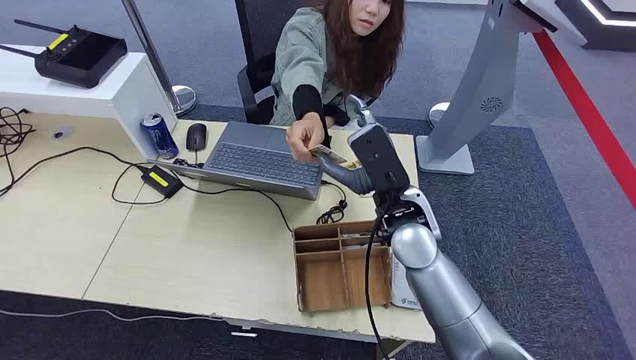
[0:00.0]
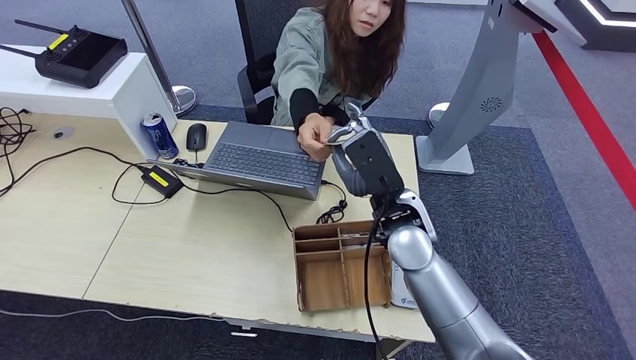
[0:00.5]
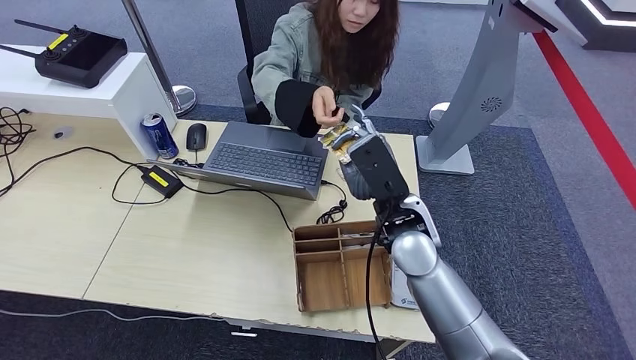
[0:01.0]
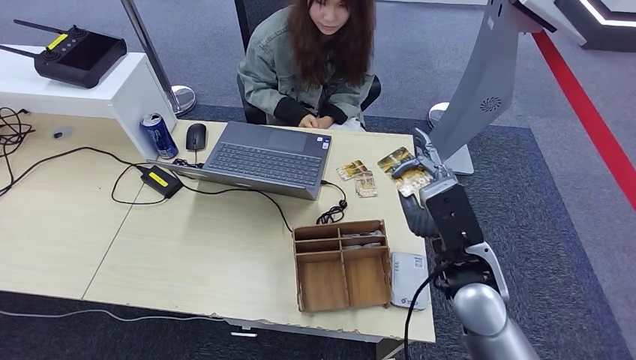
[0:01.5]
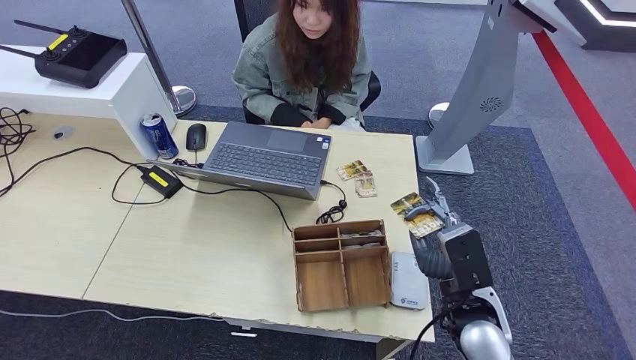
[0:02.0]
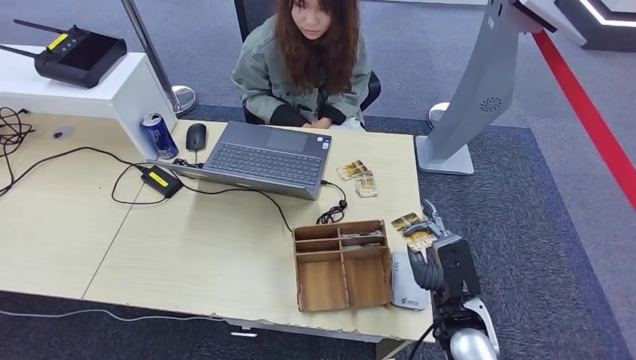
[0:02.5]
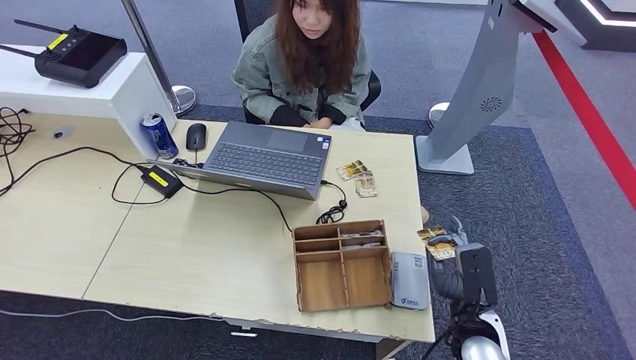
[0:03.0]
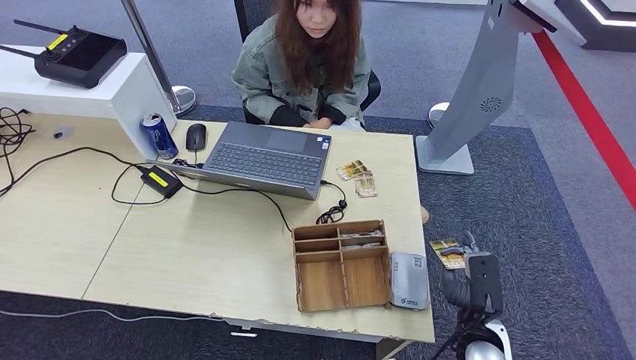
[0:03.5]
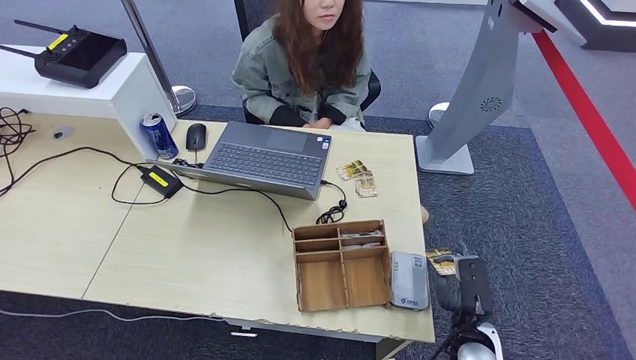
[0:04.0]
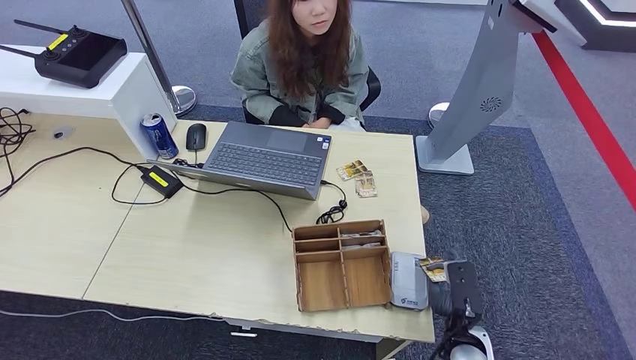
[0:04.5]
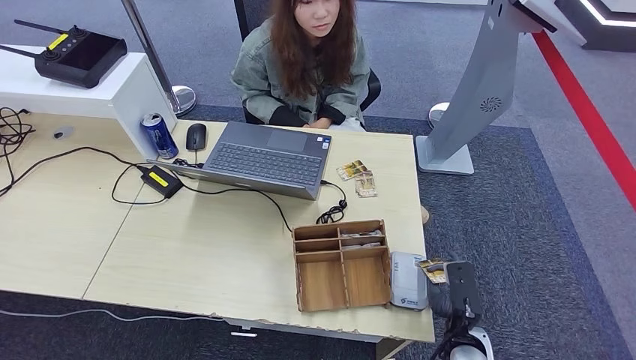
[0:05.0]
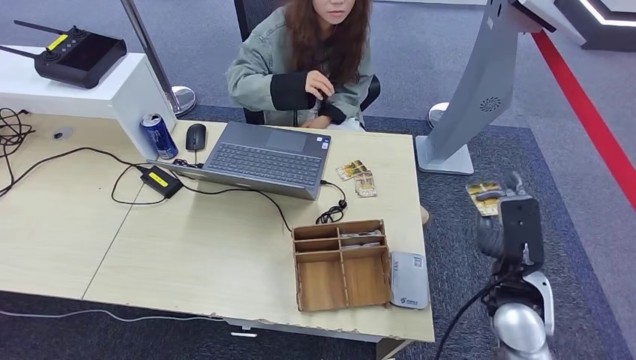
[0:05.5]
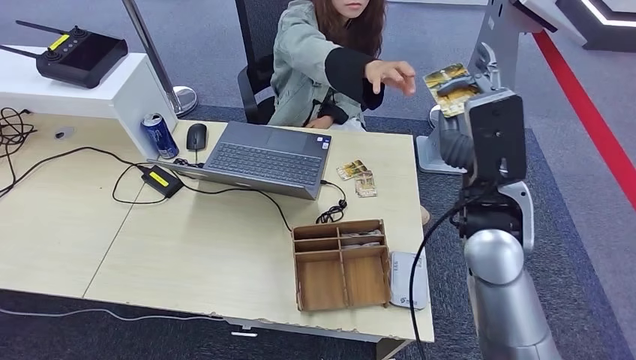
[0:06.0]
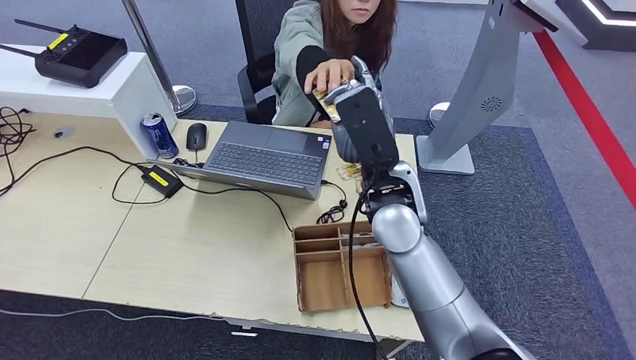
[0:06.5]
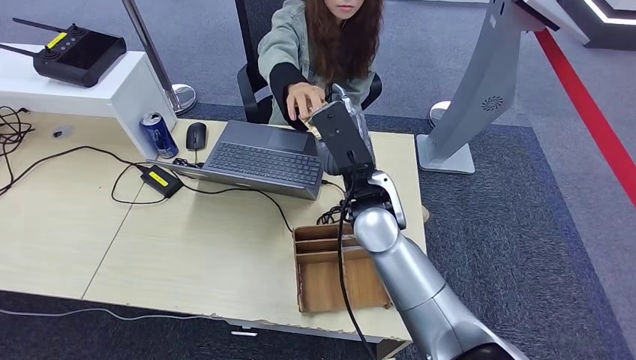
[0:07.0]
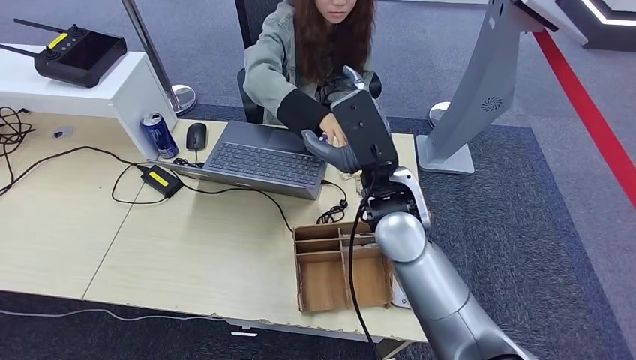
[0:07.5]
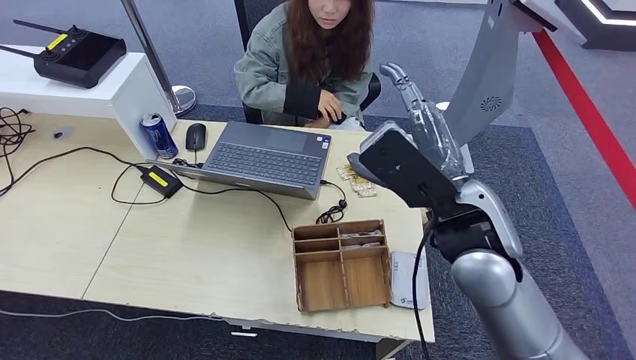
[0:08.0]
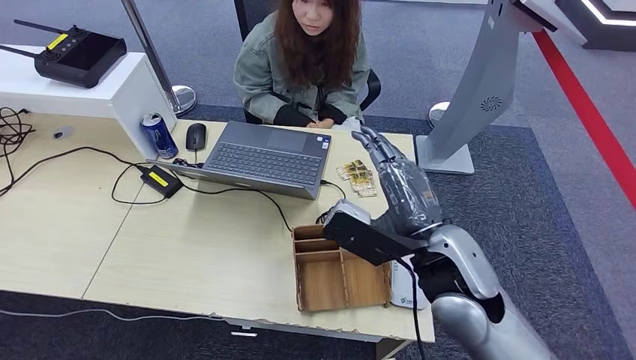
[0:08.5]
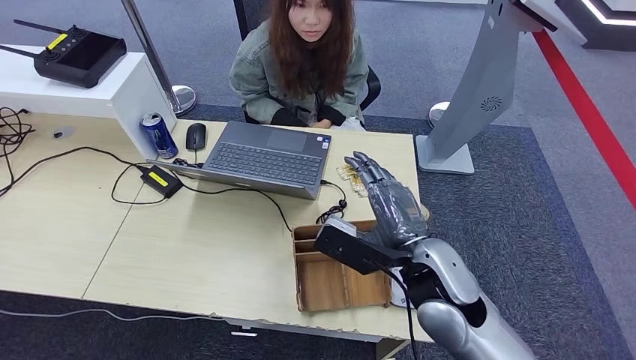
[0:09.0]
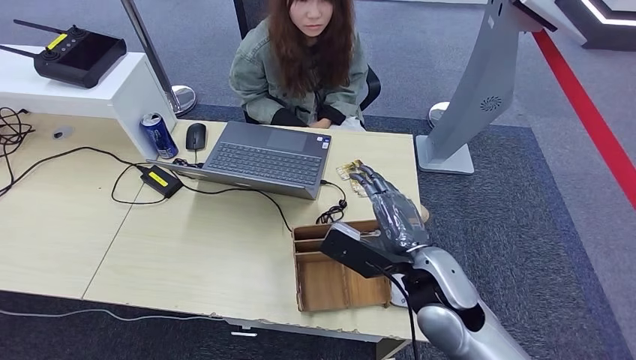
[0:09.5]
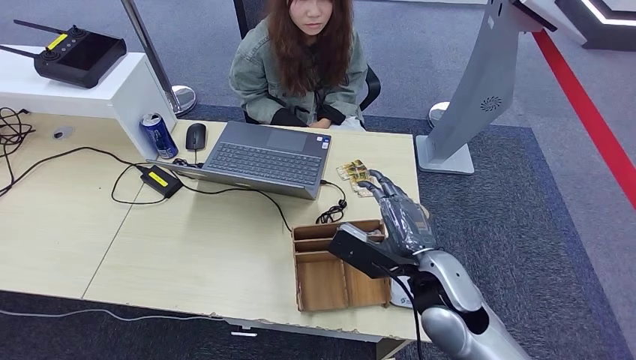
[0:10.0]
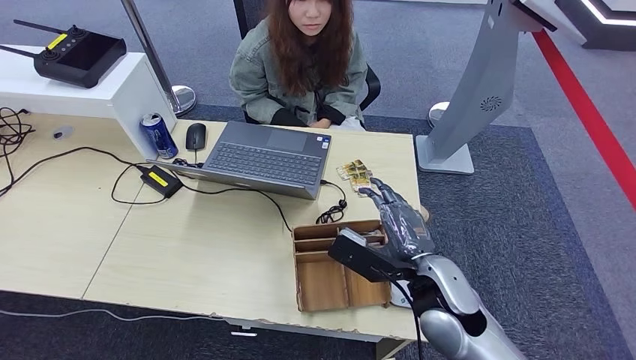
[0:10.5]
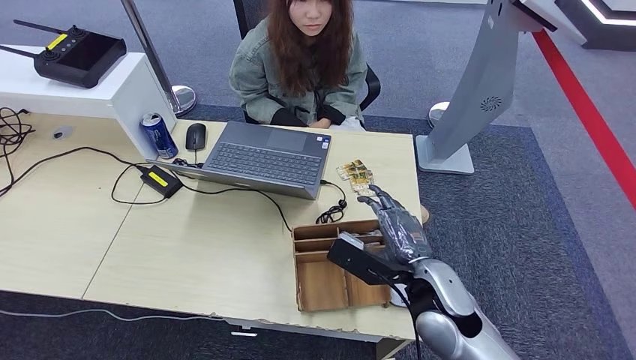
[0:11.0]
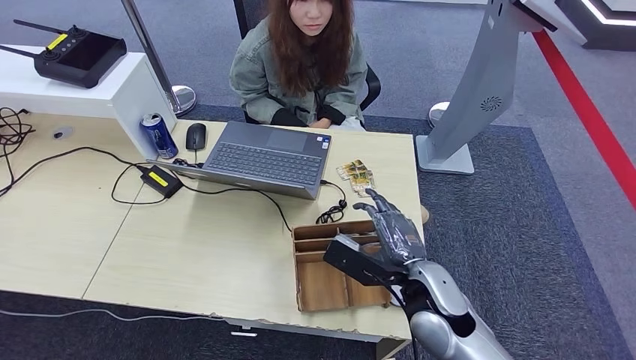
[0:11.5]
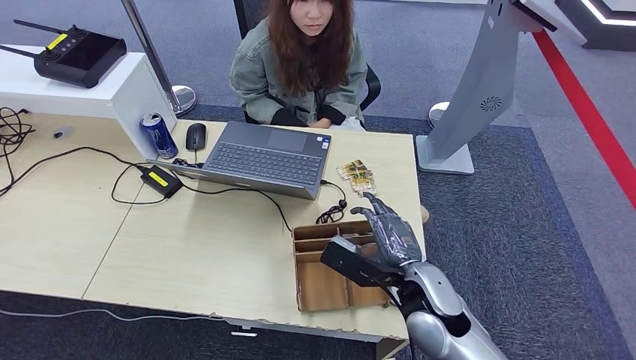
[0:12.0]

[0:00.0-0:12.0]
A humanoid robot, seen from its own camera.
Step, 0:00.0 to 0:01.0: Take the ID card from the person's hand.
Step, 0:01.5 to 0:04.5: Place the ID card on the card reader.
Step, 0:05.0 to 0:11.0: Hand the ID card to the person.
0:02.0 to 0:04.0: The right hand is displaced downward and backward by about 15 cm.
0:04.0 to 0:06.0: The right hand travels upward and forward by roughly 35 cm.
0:06.0 to 0:08.0: The right hand moves some 15 cm to the left and comes back.
0:08.0 to 0:10.0: The right hand moves downward, about 15 cm.
0:10.0 to 0:12.0: The hands move only a little.

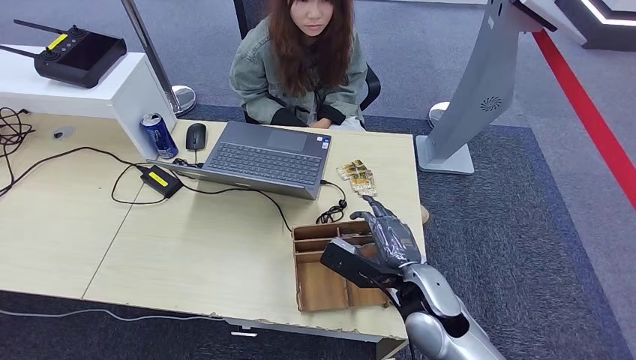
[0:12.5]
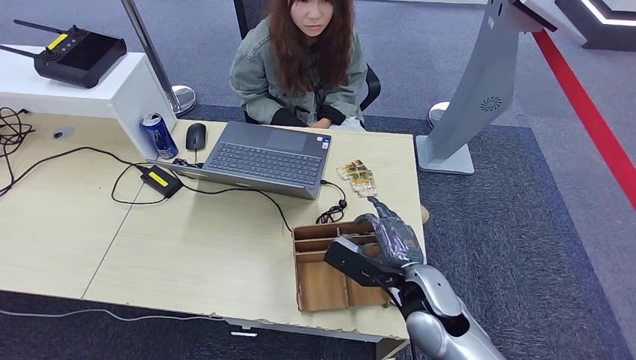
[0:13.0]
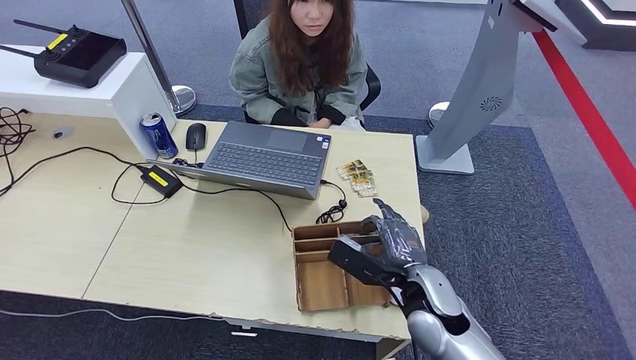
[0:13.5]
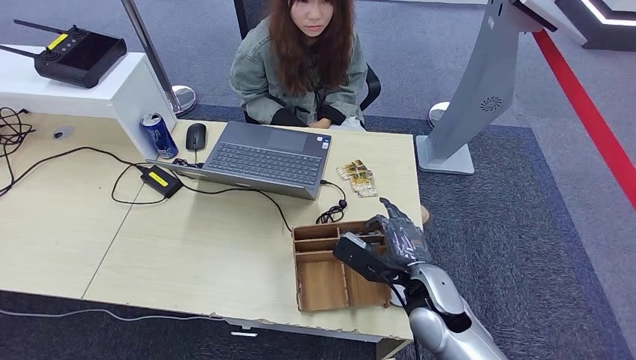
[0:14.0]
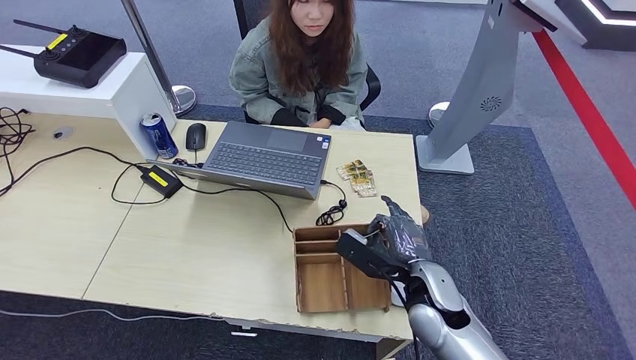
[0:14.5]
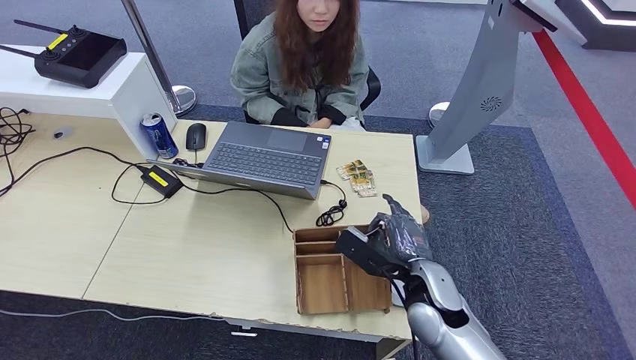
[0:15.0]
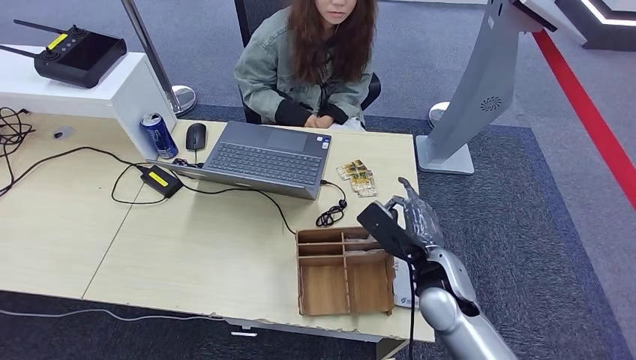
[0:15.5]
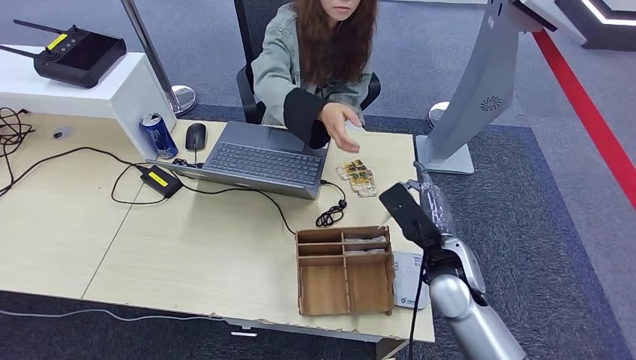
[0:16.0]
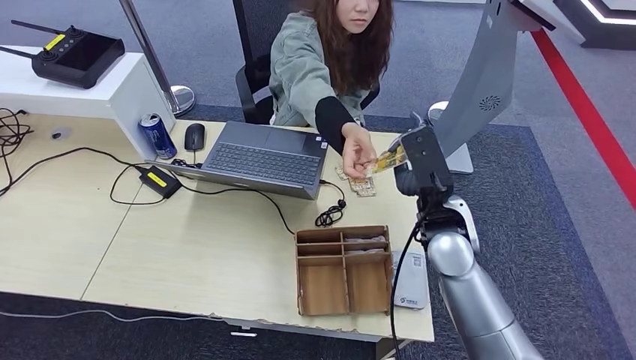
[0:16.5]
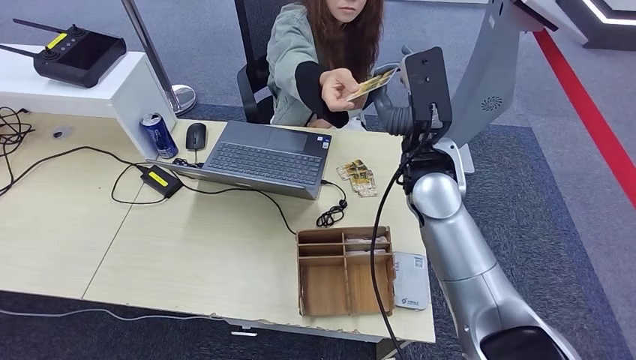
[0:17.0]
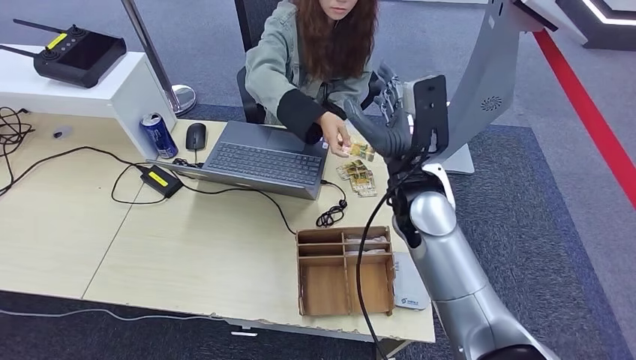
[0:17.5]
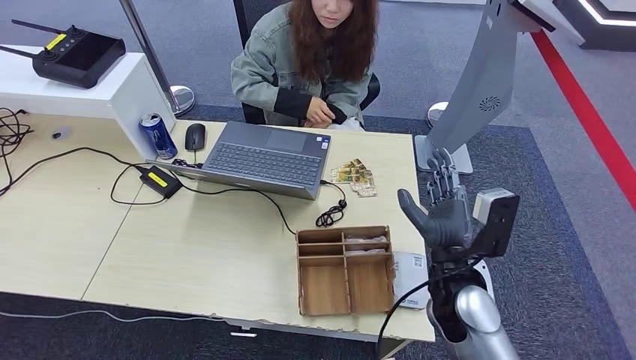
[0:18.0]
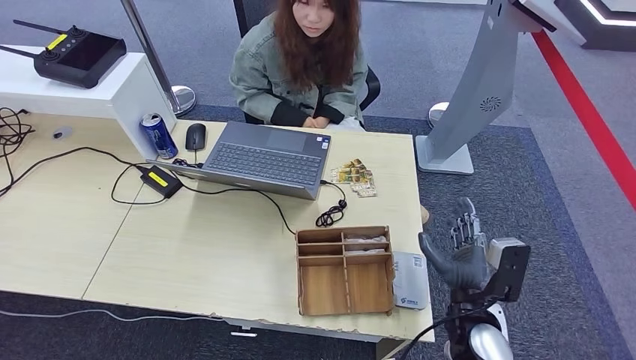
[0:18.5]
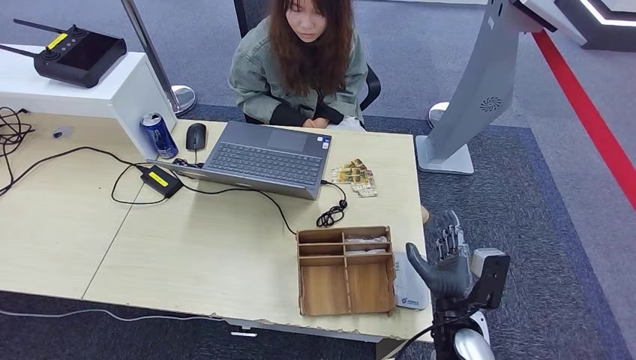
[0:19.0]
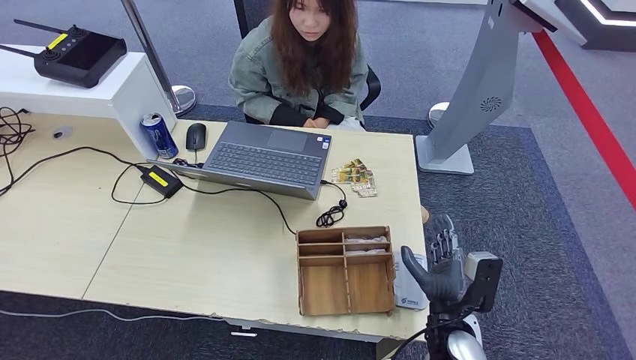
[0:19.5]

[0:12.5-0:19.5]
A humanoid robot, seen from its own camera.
Step, 0:12.5 to 0:16.0: Pick up the room key from the key card box.
Step, 0:16.5 to 0:19.5: Hand the room key to the person.
0:12.5 to 0:14.5: The hands make only small movements.
0:14.5 to 0:16.0: The right hand shifts by roughly 5 cm.
0:16.0 to 0:17.5: The right hand travels upward, forward and to the left by approximately 15 cm.
0:17.5 to 0:19.5: The right hand heads downward and backward, covering some 30 cm.
